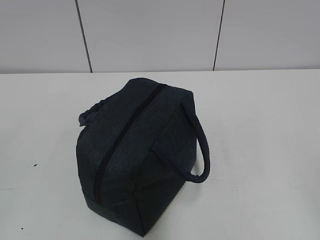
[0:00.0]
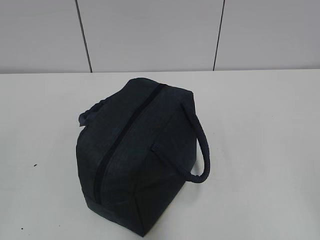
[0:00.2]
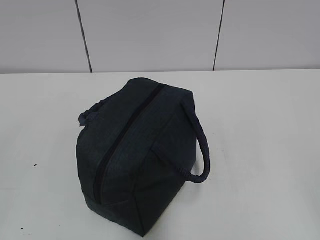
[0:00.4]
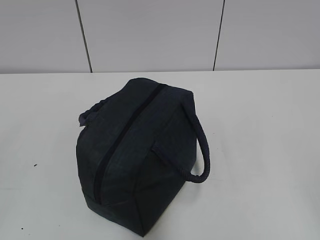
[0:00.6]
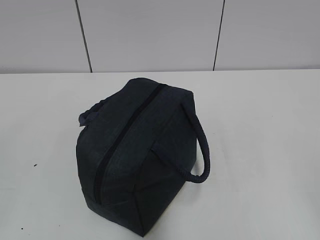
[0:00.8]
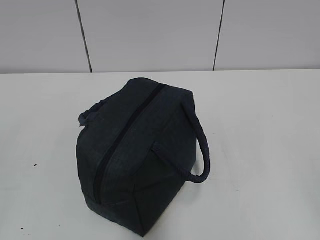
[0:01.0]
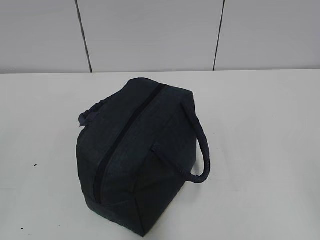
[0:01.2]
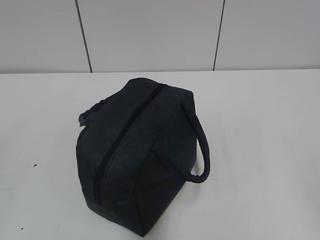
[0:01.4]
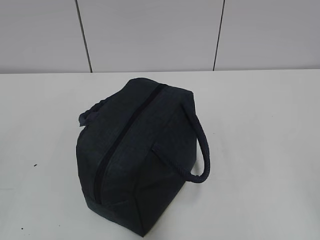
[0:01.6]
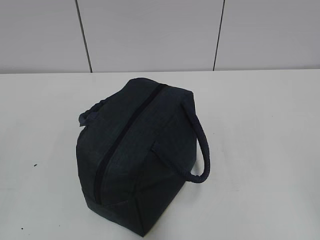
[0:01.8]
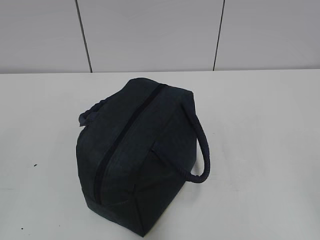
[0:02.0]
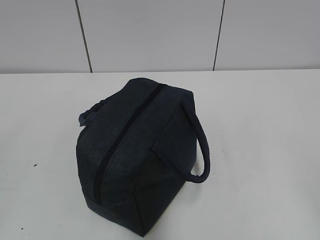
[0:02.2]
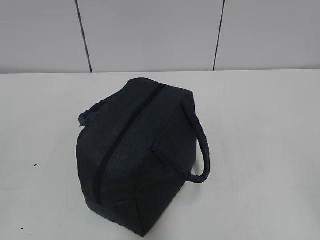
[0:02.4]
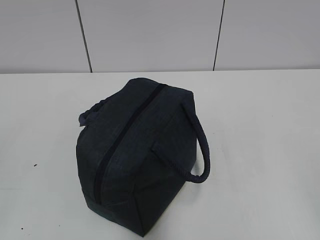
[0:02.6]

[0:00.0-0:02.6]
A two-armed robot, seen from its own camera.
0:00.0 to 0:02.6: The two grippers keep their place.
